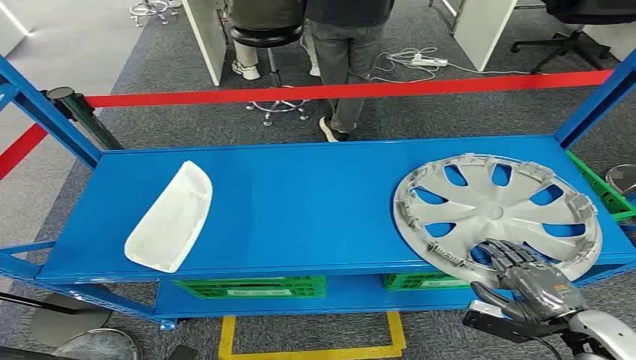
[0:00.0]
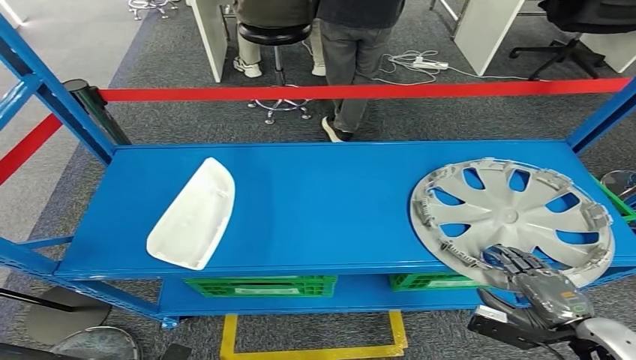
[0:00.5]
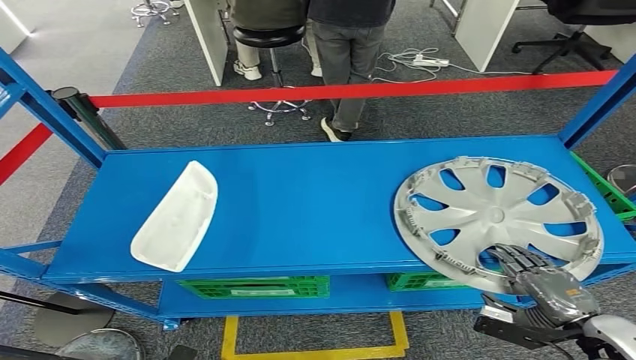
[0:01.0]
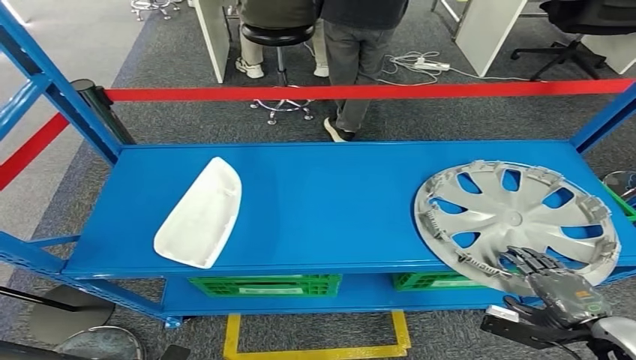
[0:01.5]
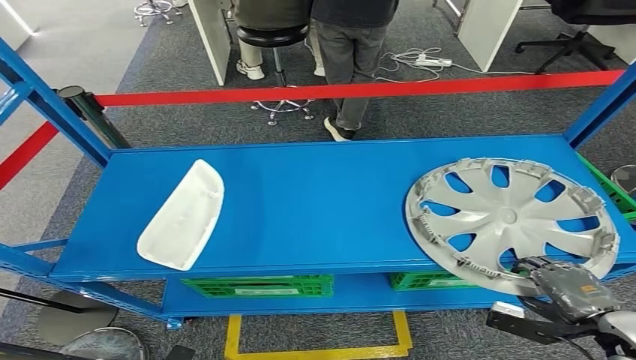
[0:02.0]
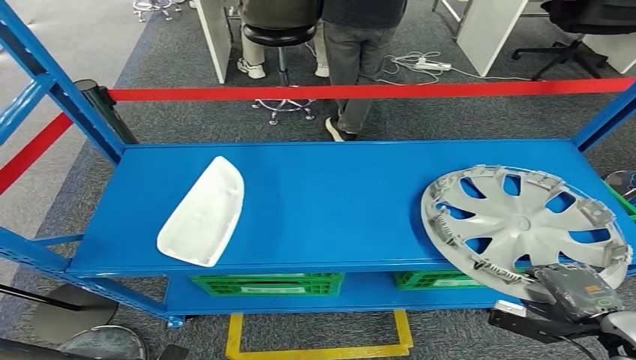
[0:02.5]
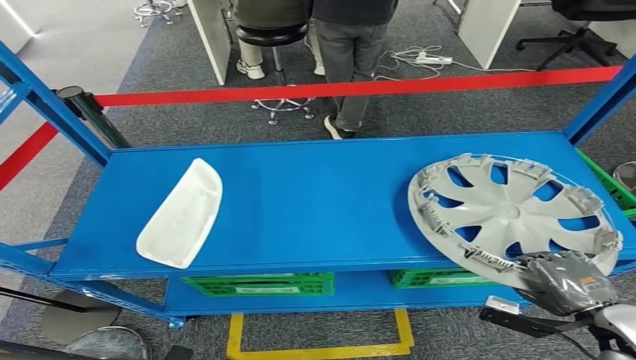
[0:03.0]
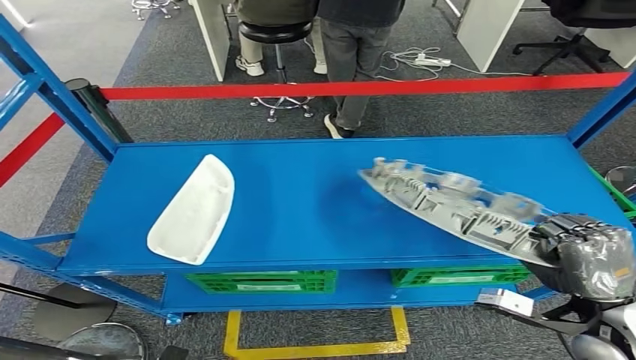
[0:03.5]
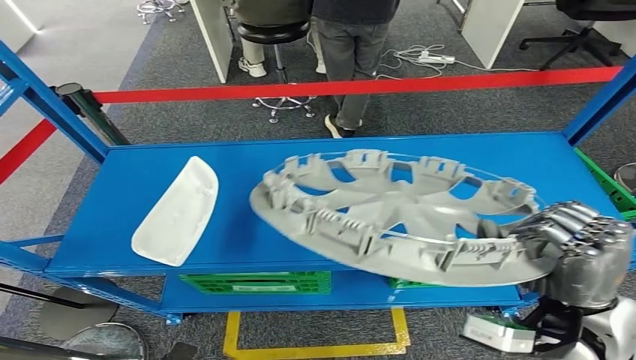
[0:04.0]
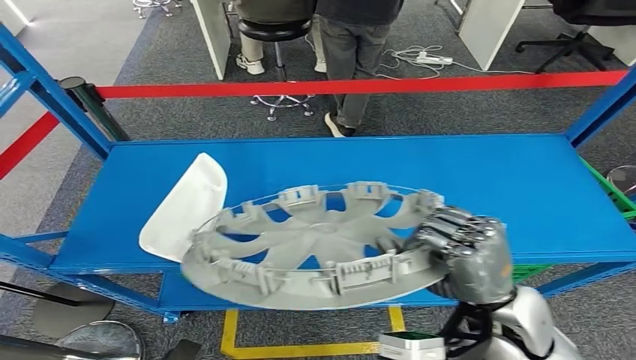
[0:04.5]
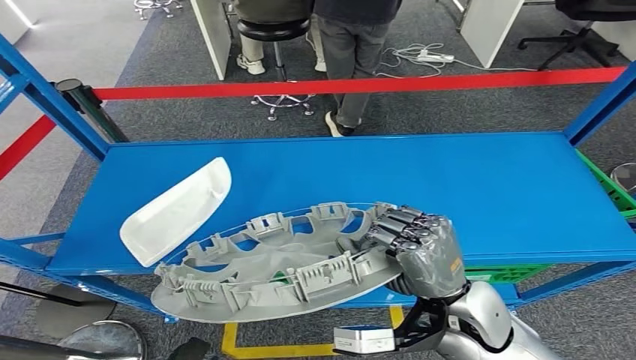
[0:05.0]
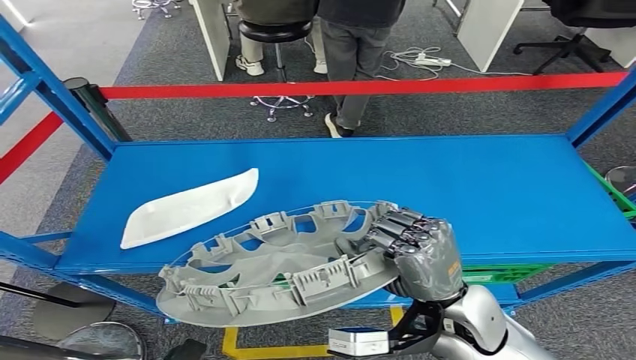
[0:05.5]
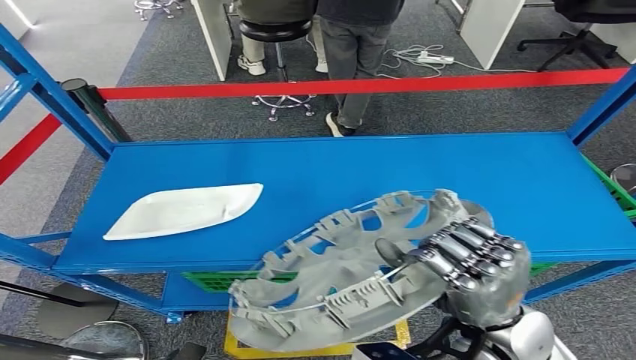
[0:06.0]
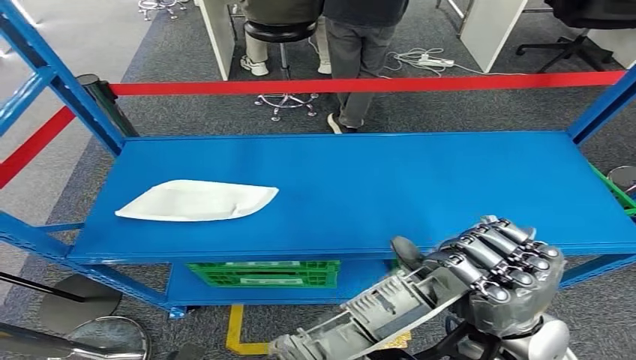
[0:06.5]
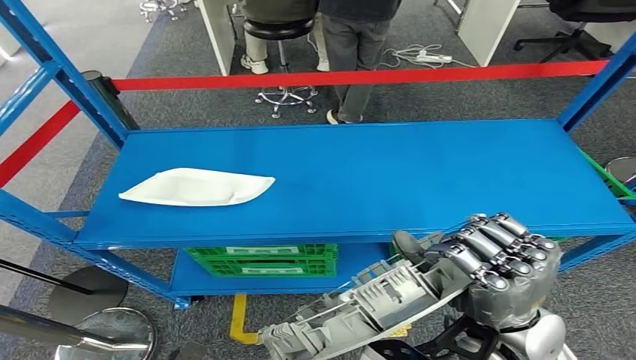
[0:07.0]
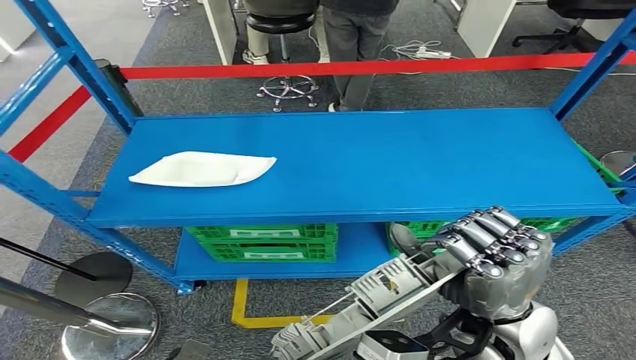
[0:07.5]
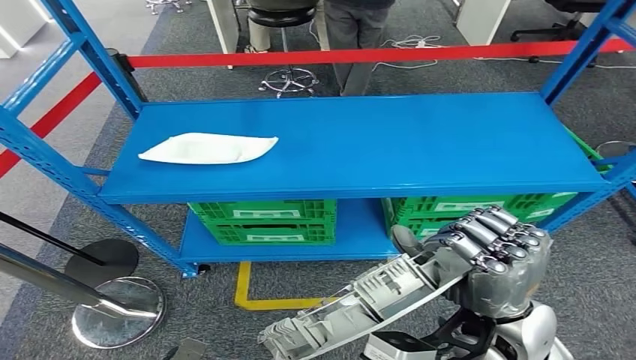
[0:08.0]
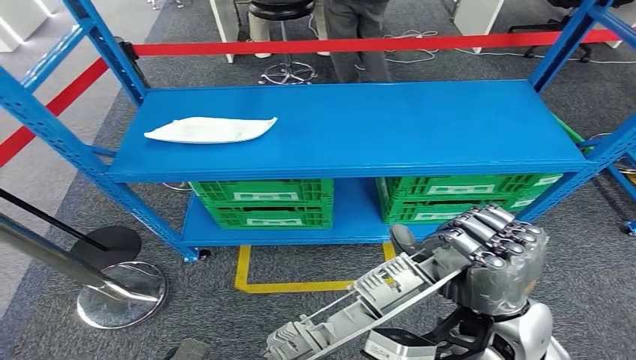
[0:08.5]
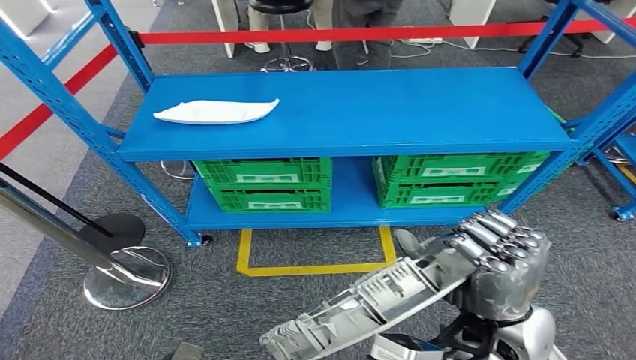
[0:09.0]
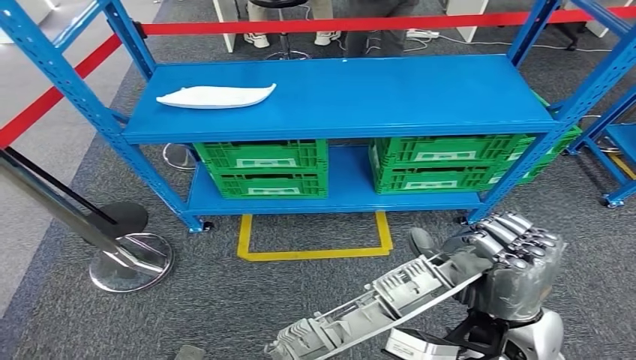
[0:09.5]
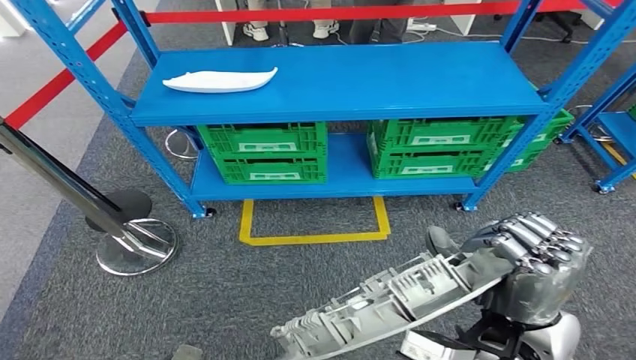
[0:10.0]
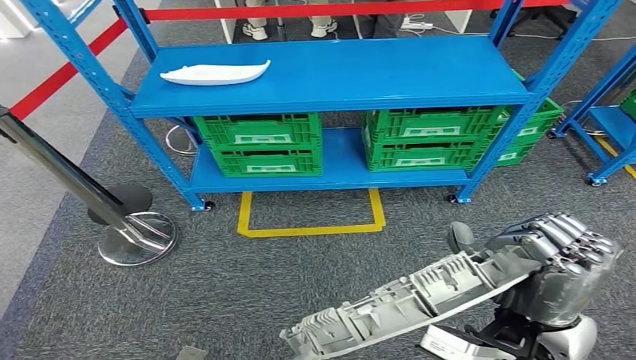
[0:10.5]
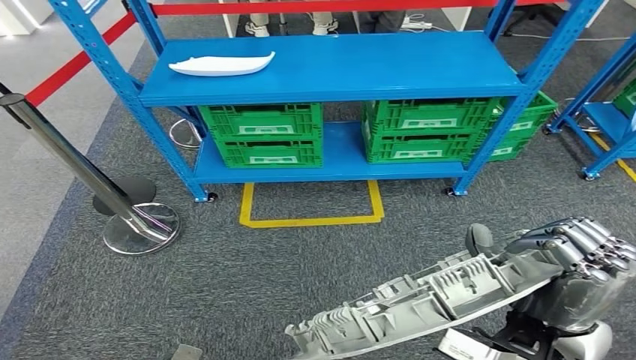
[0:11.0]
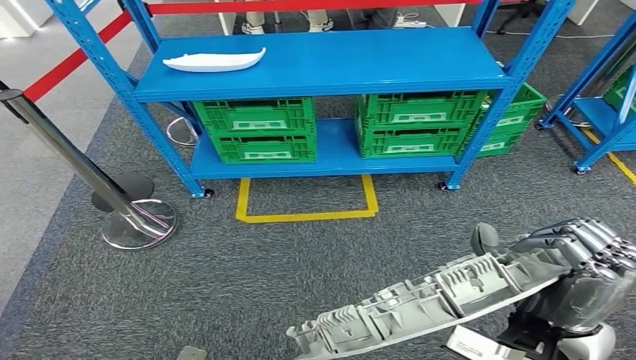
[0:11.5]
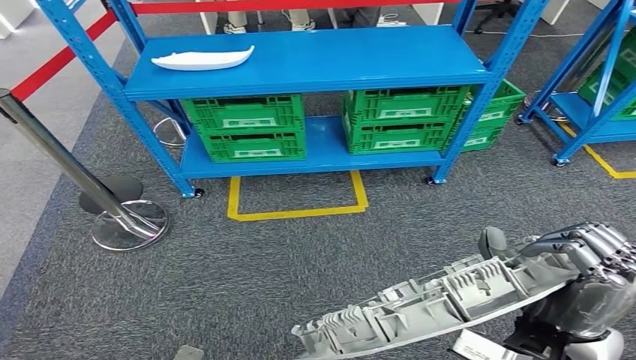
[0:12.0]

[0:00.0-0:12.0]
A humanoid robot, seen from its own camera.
Step, 0:00.0 to 0:07.5: Pick up the small component from the shelf.

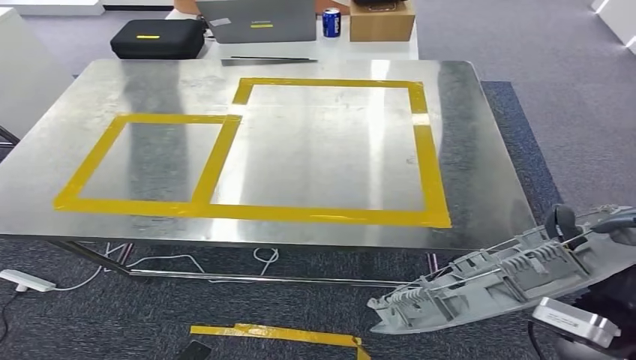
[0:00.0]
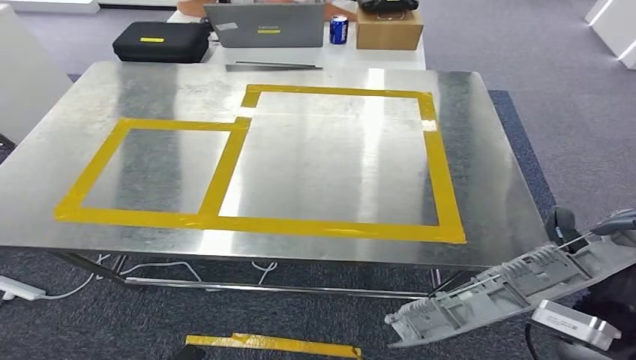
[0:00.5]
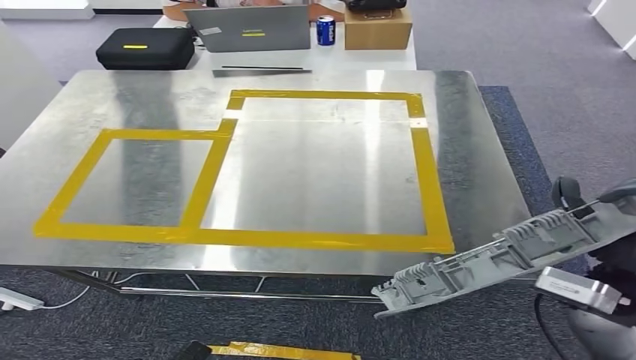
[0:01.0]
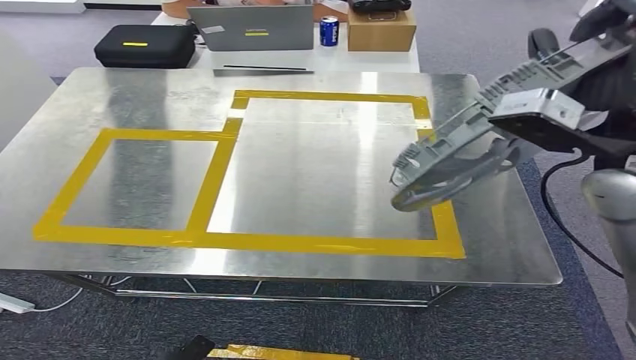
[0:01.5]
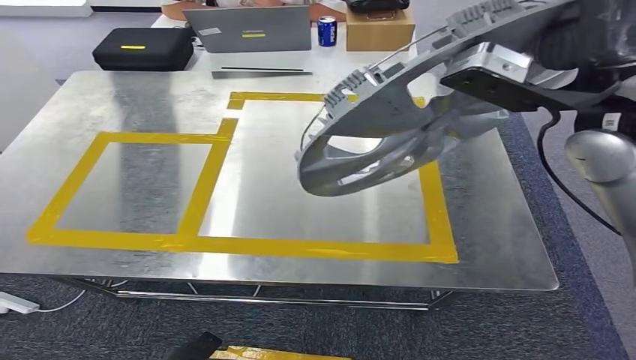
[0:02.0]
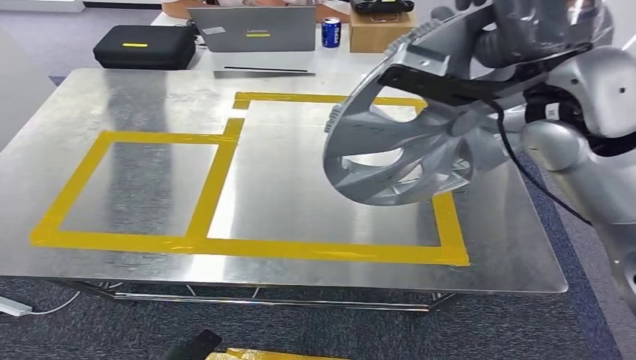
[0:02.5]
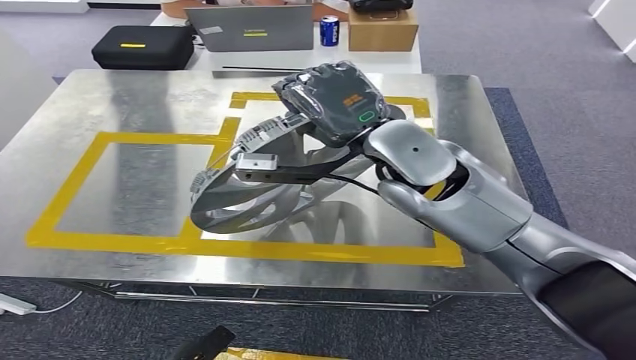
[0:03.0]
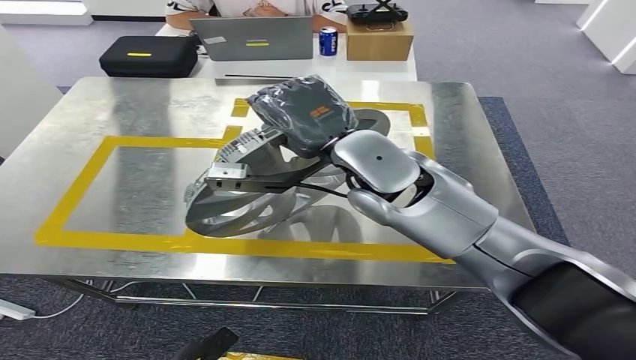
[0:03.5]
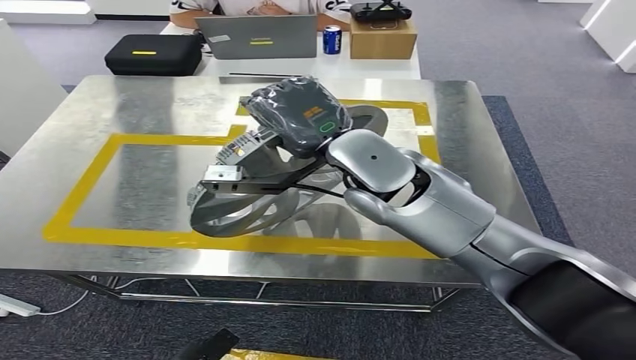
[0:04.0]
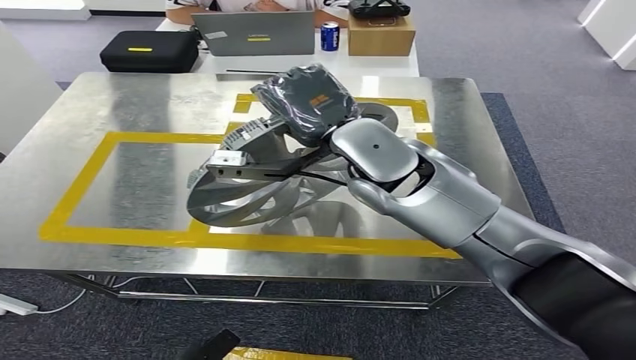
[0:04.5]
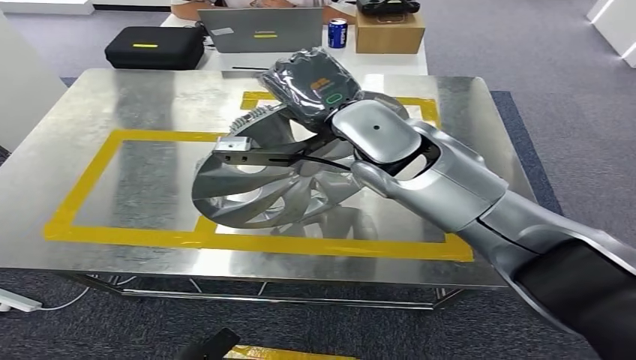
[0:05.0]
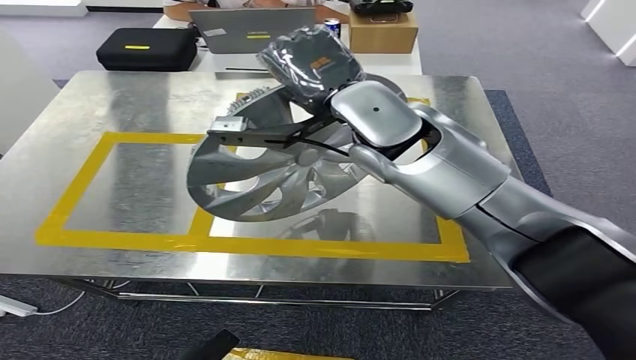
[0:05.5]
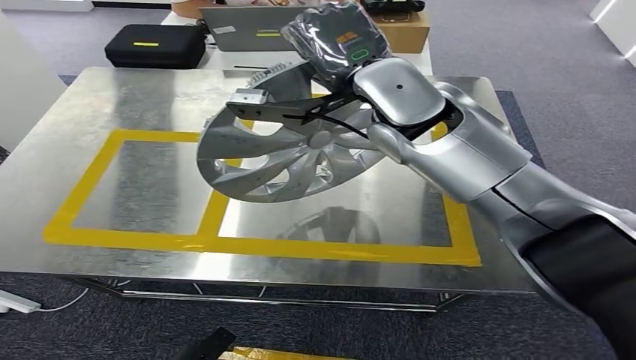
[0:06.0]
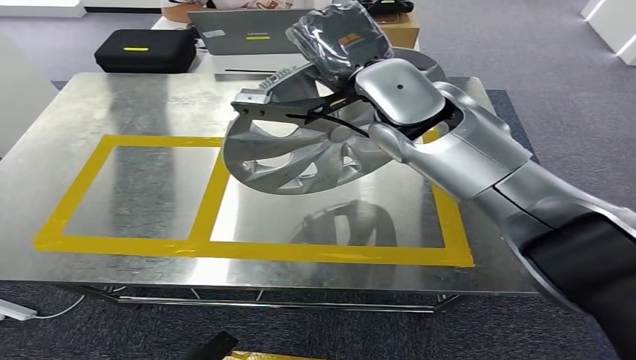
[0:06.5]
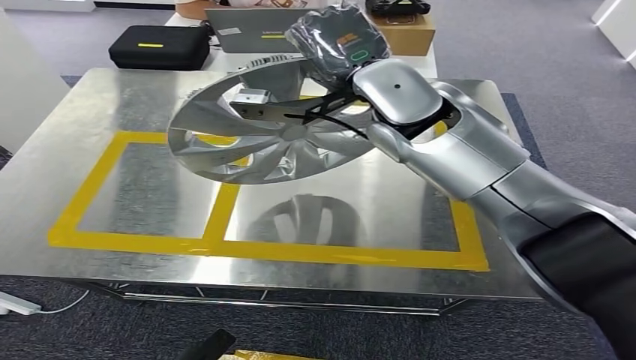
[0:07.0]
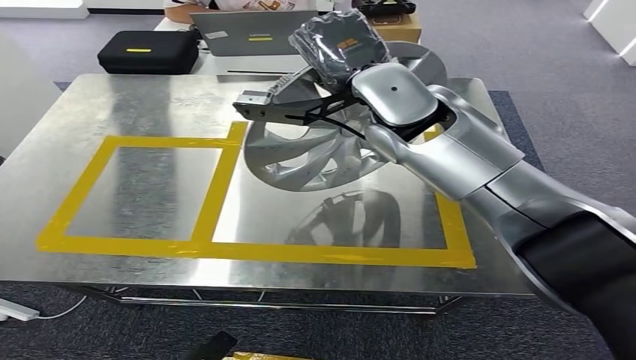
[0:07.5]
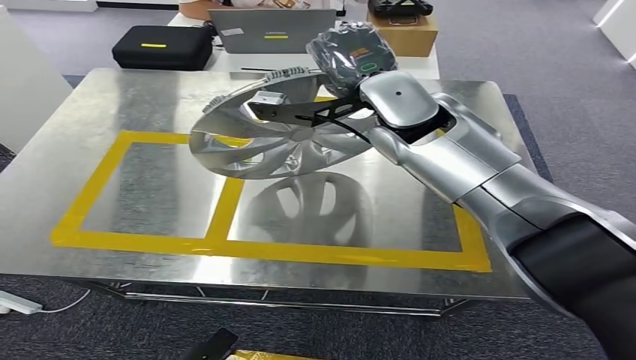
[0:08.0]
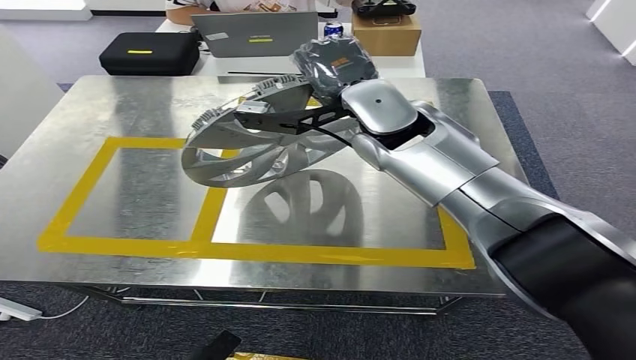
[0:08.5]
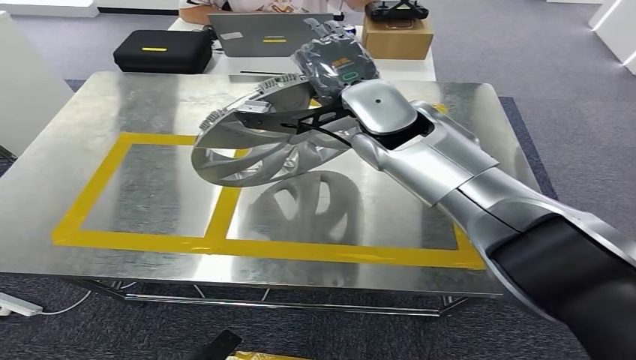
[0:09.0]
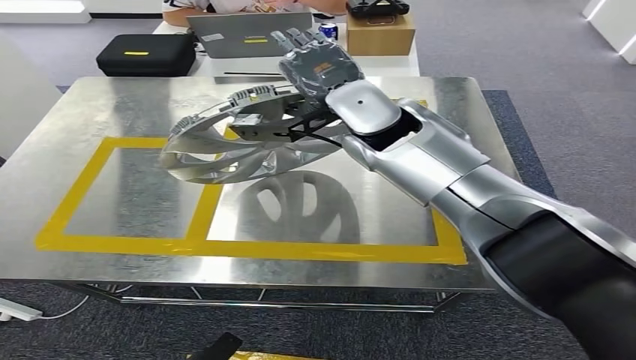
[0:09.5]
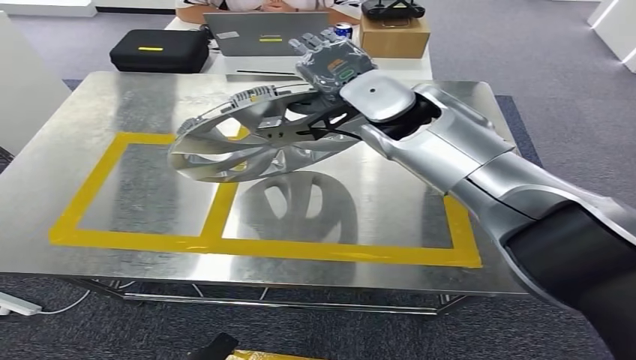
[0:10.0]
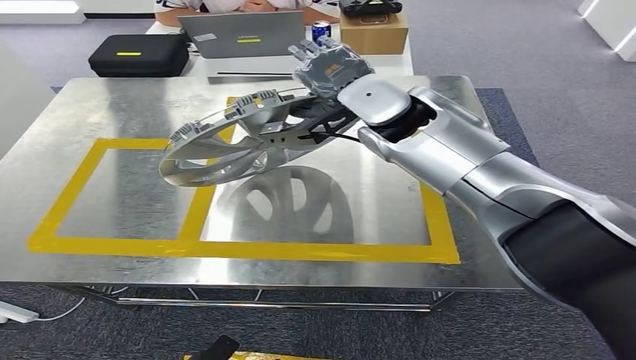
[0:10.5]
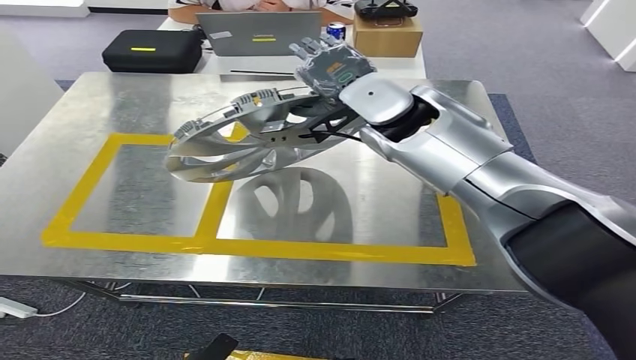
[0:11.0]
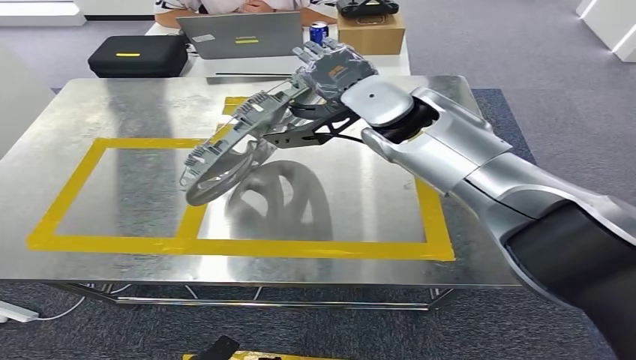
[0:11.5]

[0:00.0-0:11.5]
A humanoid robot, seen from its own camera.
Step, 0:00.0 to 0:02.5: Bring the small component to the front of the workbench.
